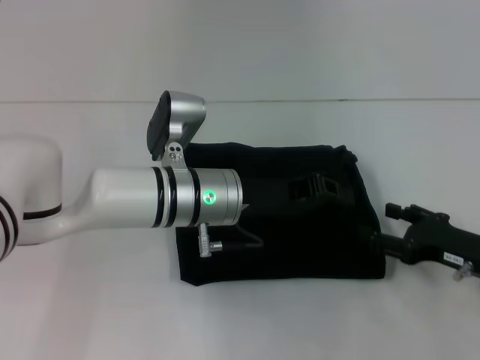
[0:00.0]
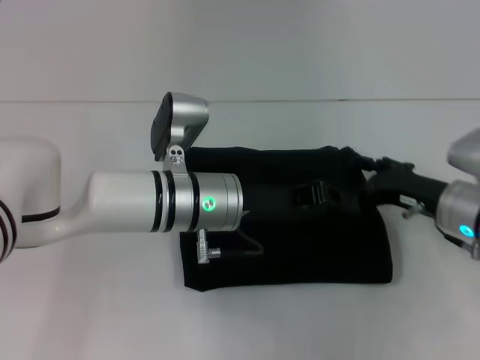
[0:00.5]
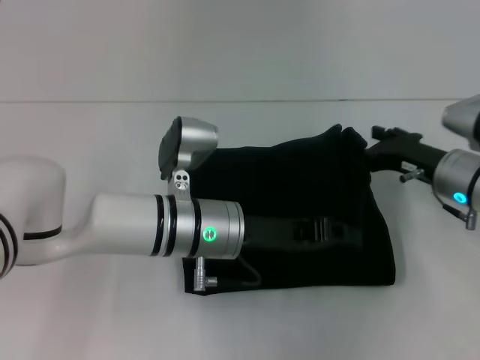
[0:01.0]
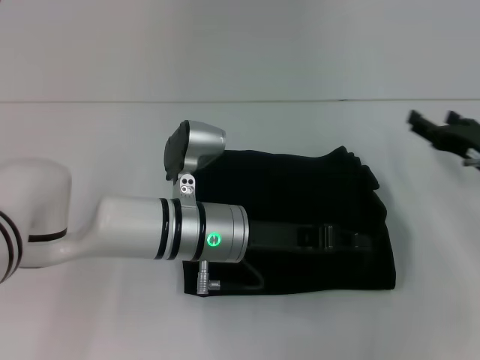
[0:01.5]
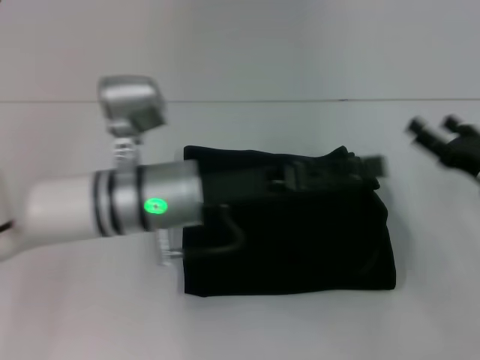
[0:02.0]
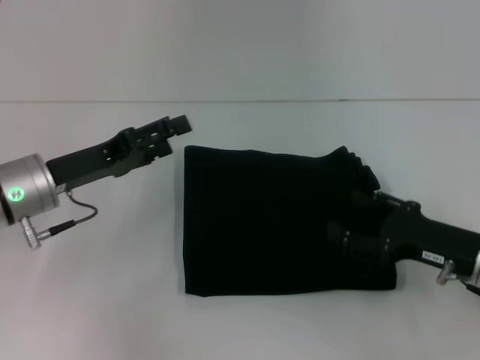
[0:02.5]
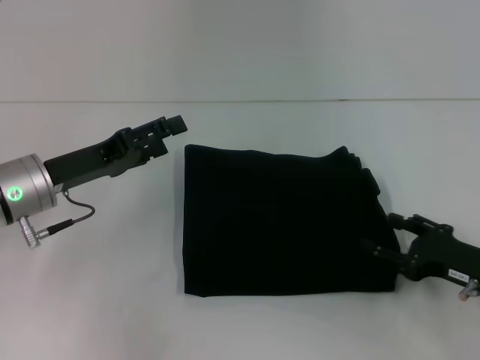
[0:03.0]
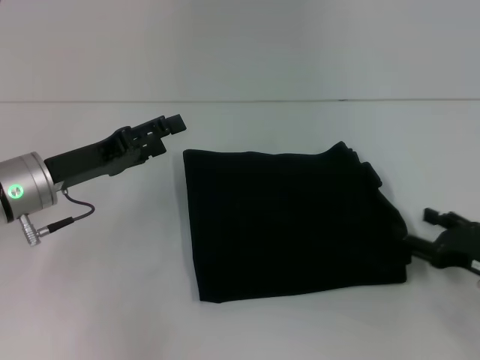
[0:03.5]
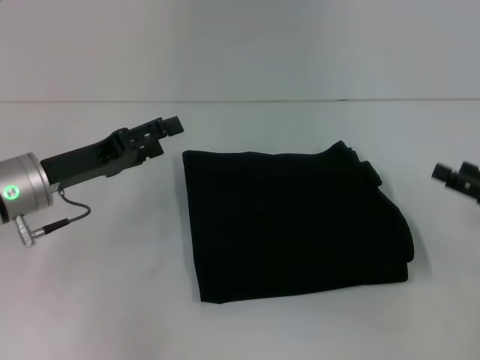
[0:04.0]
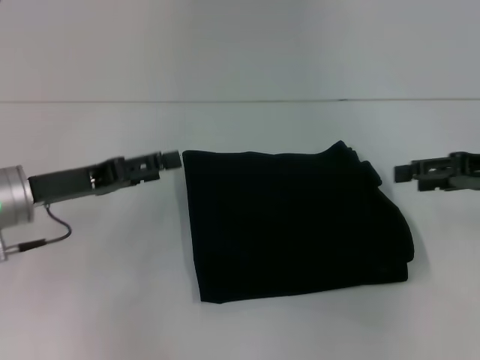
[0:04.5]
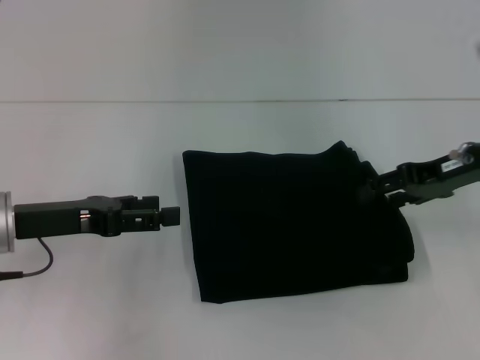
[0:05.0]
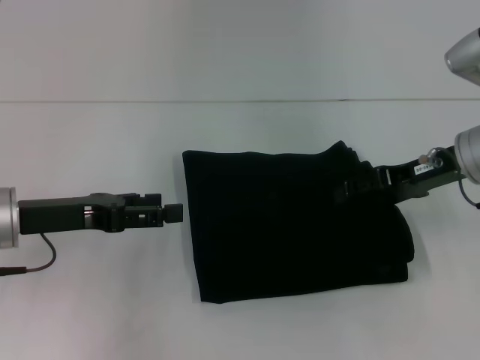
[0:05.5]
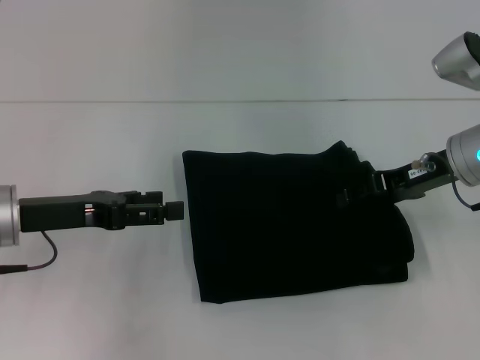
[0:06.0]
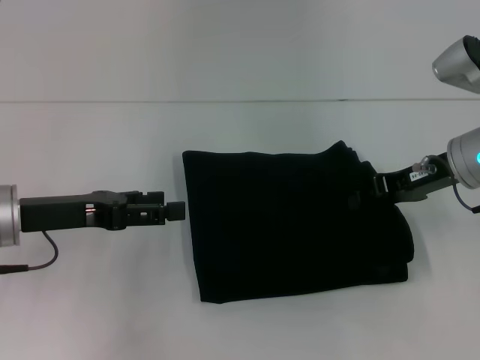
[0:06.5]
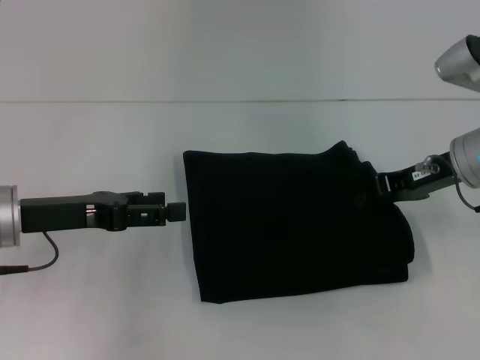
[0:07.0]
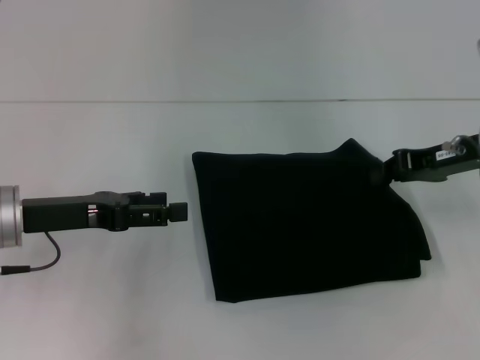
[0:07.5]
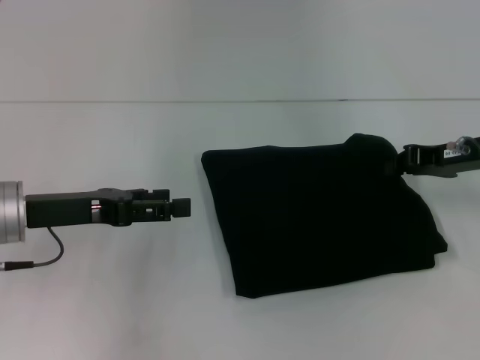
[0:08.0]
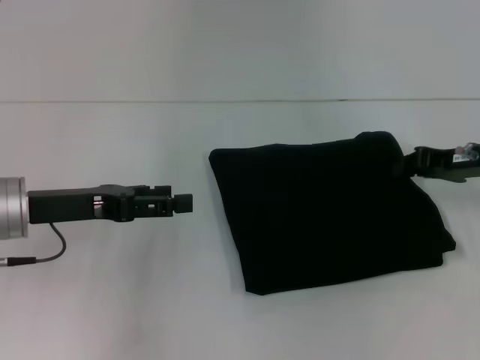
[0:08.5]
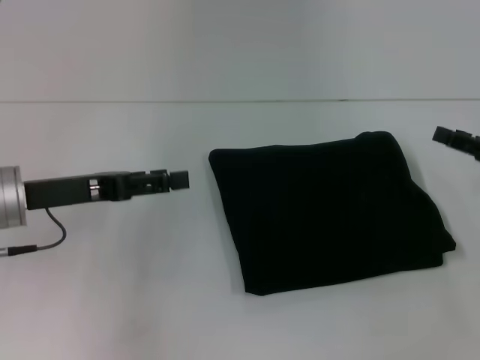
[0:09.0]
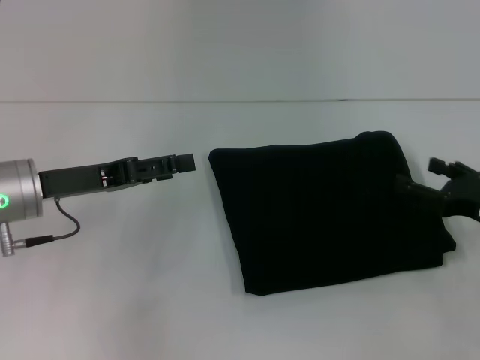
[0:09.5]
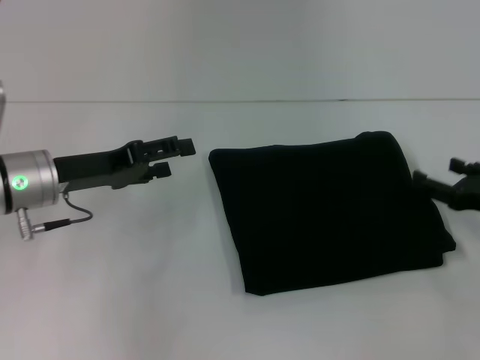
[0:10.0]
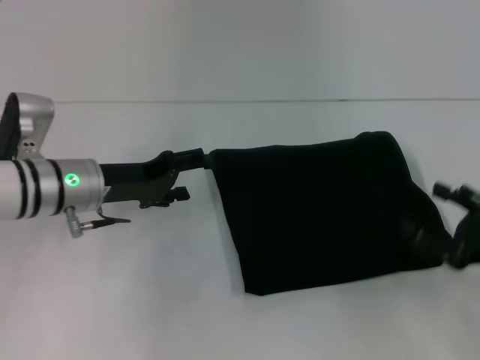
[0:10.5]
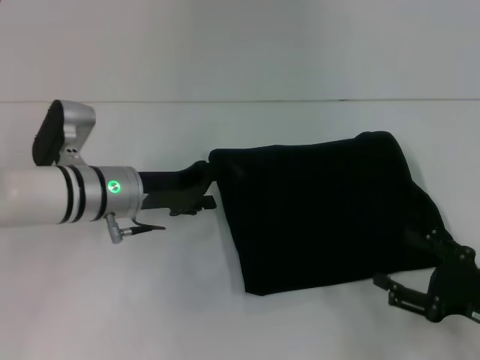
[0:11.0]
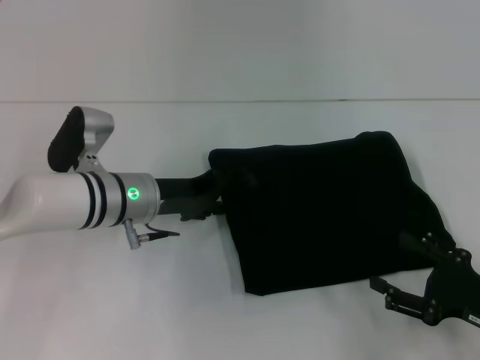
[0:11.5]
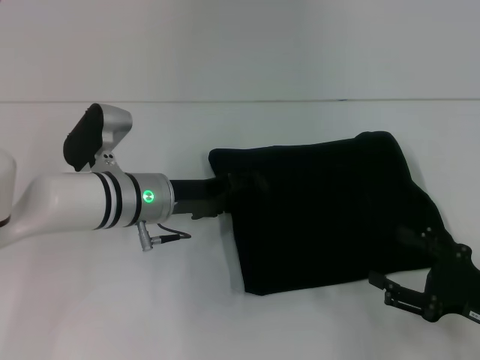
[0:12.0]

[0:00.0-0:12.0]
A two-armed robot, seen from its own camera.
0:00.0 to 0:02.0: The left gripper moves about 5 cm, and opens its fingers.
0:02.0 to 0:04.0: The left gripper goes roughly 15 cm to the left, and opens up, while the right gripper changes place by roughly 5 cm.
0:04.0 to 0:06.0: The right gripper moves to the left, forward and upward, roughly 15 cm.
0:06.0 to 0:08.0: The right gripper closes.
0:08.0 to 0:10.0: The right gripper heads backward and downward, covering some 10 cm, and opens.
0:10.0 to 0:12.0: The left gripper travels to the right by about 10 cm. The right gripper travels backward by about 10 cm.

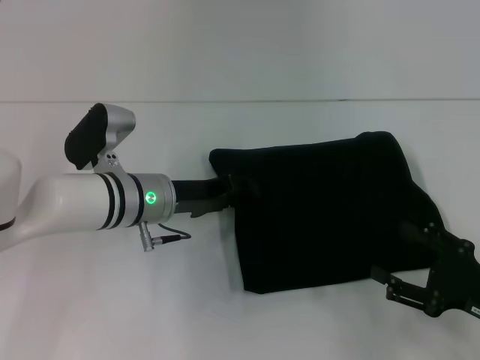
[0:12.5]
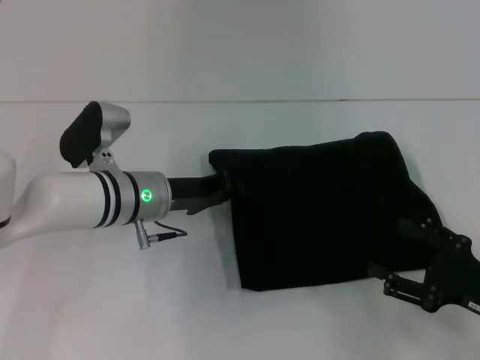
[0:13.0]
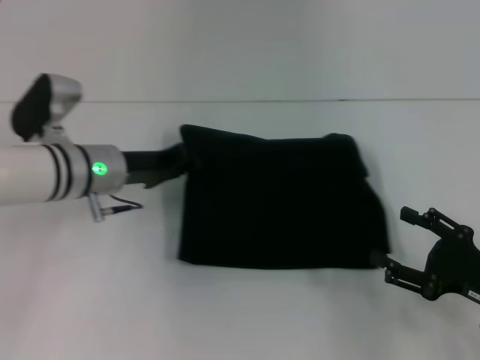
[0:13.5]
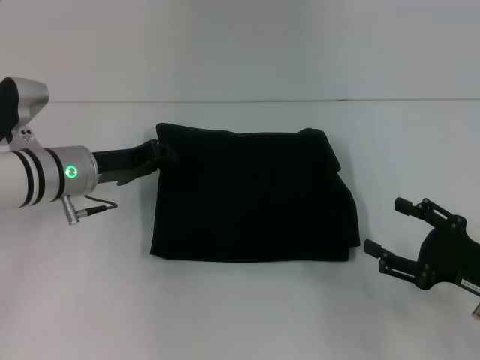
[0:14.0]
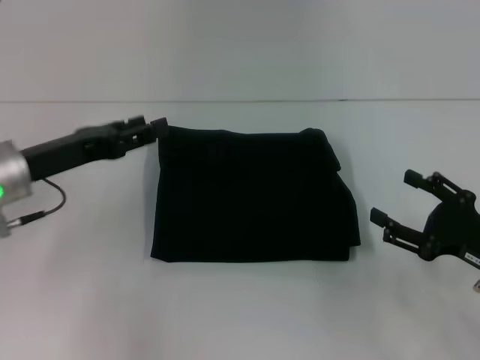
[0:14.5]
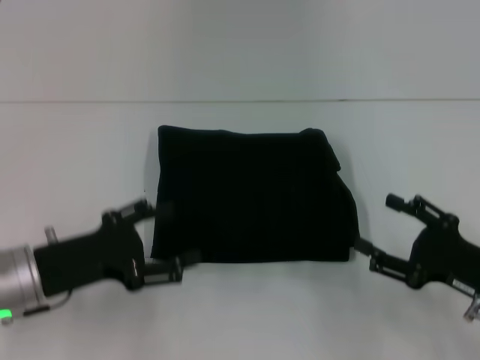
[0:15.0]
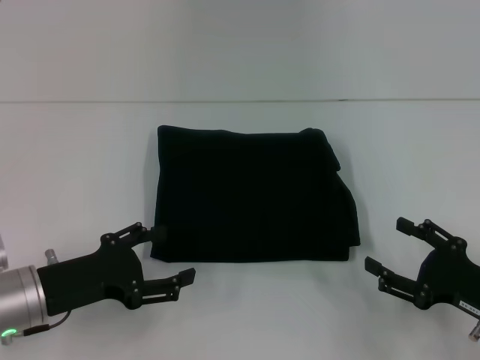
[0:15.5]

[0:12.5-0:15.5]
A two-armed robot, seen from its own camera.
0:12.5 to 0:14.0: The left gripper heads to the left, covering roughly 10 cm, and closes its fingers.
0:14.0 to 0:15.5: The left gripper goes approximately 15 cm backward, and opens its fingers.

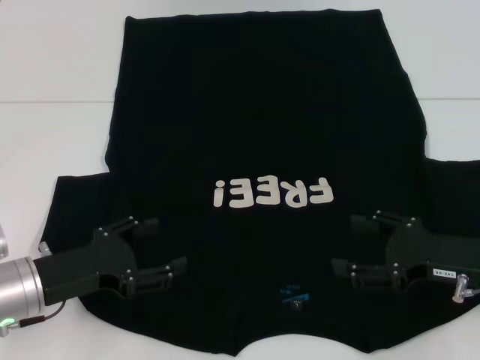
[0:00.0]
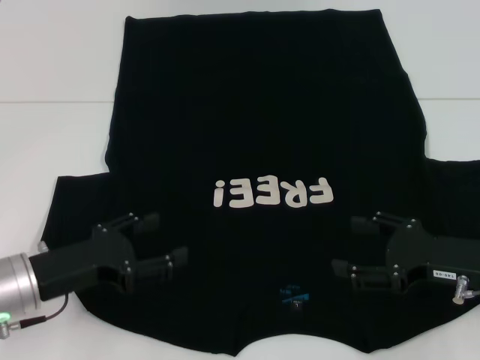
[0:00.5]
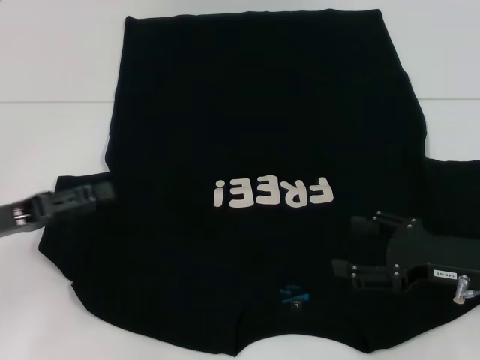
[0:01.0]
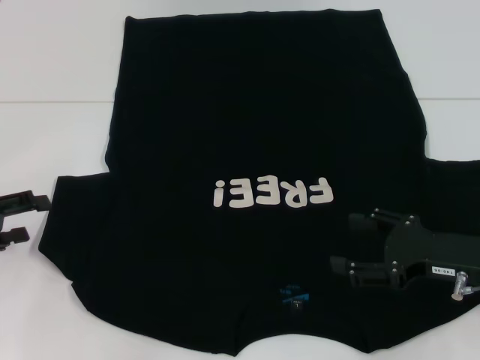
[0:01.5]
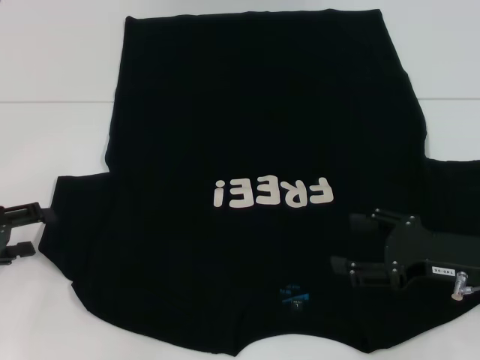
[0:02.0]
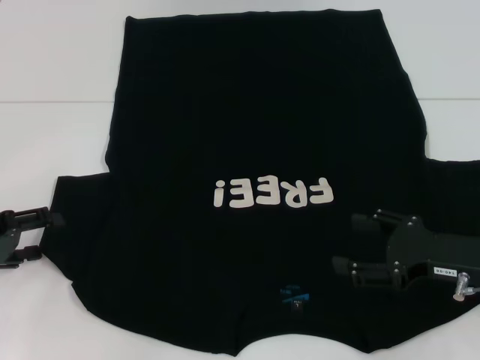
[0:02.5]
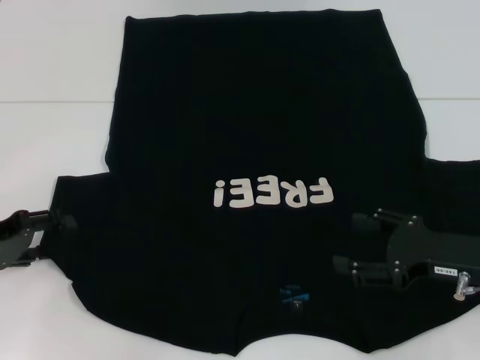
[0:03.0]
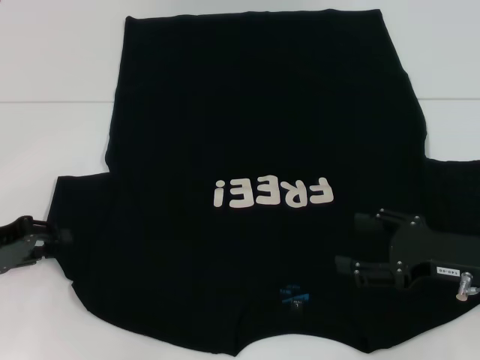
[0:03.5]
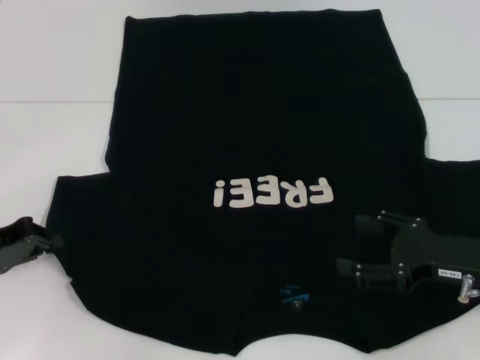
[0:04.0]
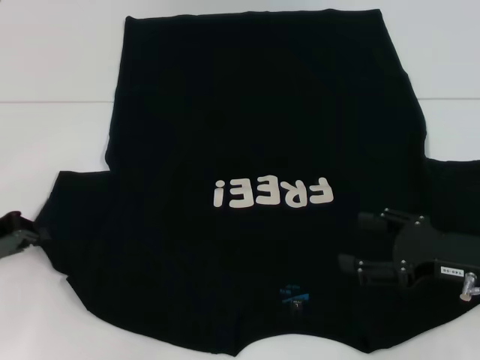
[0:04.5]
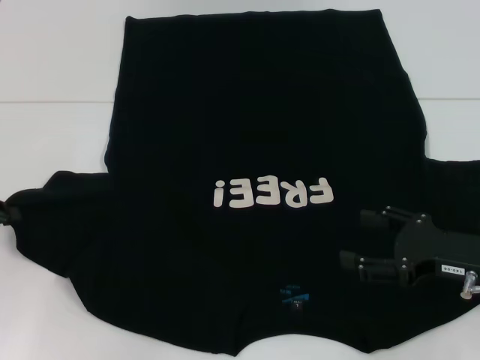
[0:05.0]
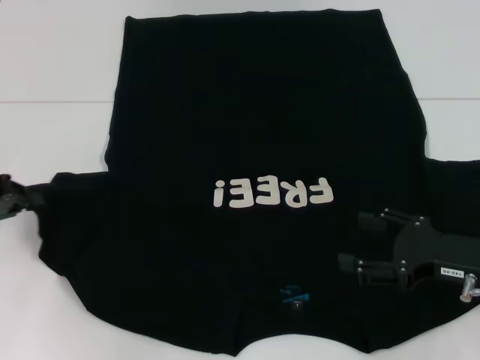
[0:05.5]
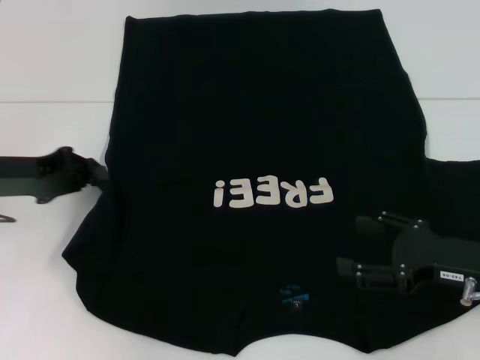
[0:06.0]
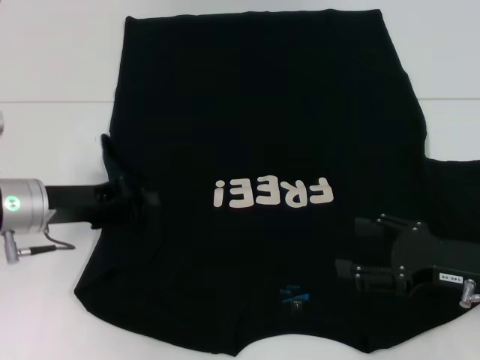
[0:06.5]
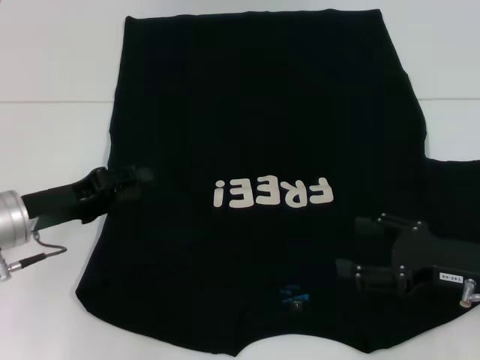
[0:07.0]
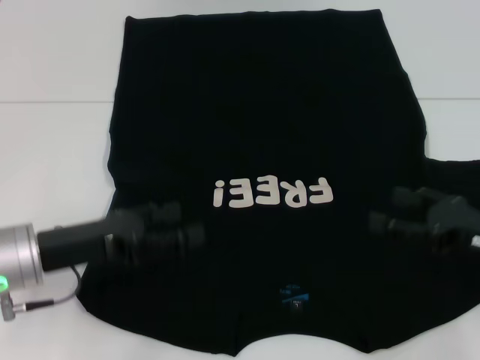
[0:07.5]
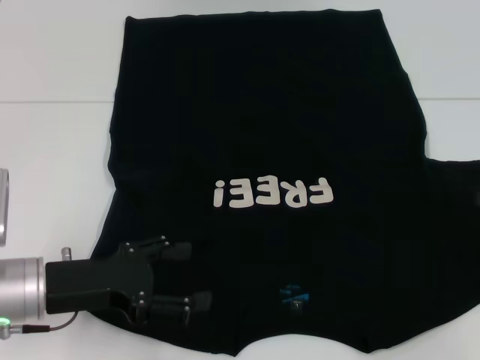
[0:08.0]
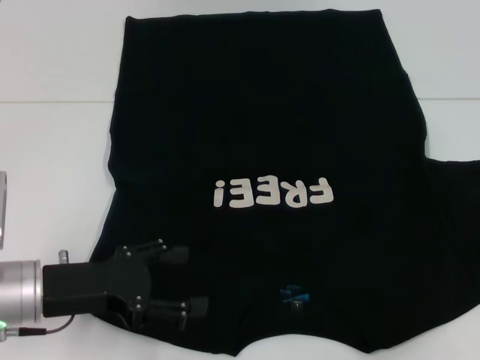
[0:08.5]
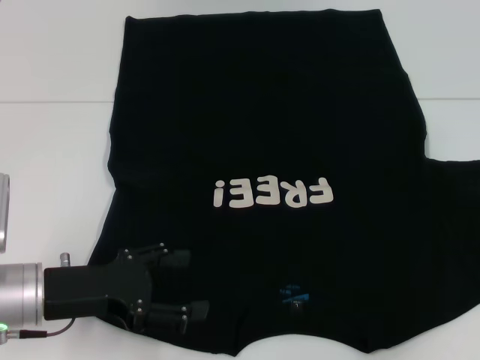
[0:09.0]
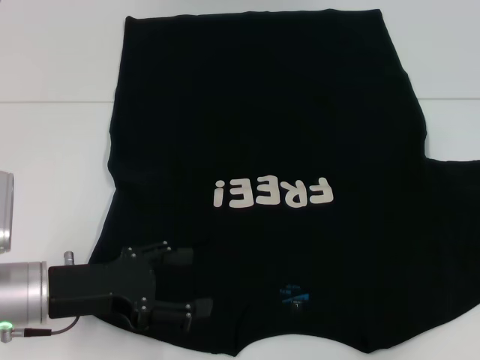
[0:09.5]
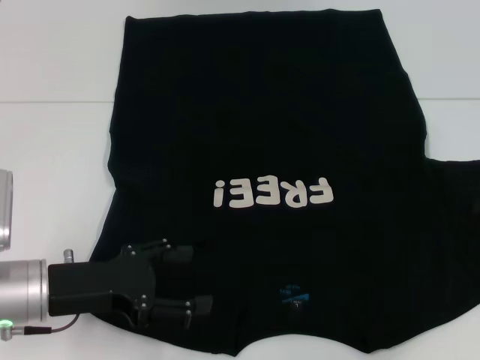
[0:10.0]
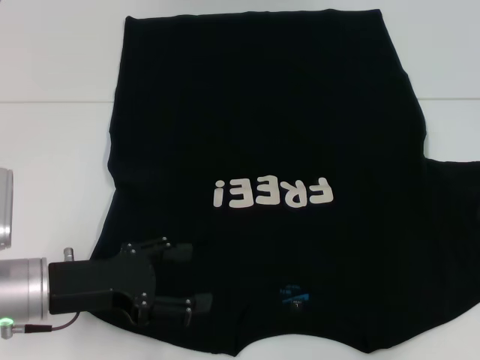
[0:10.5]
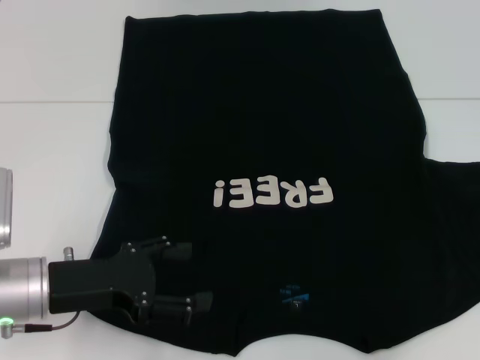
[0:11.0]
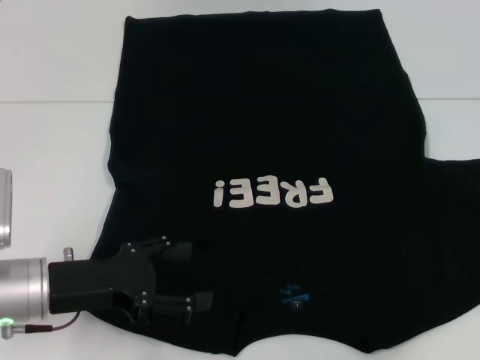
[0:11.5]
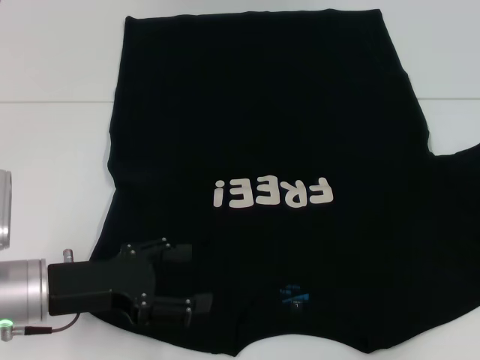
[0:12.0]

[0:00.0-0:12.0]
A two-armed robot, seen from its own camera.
Step, 0:00.0 to 0:06.5: Fold the bottom left sleeve with your left hand.
0:00.0 to 0:02.0: The left gripper travels to the left by some 10 cm.
0:02.0 to 0:04.0: The left gripper closes up.
0:04.0 to 0:06.0: The left gripper travels upward by approximately 5 cm.
0:06.0 to 0:08.0: The left gripper goes some 10 cm backward, to the right and downward, and opens, while the right gripper shifts some 15 cm to the right and upward.
